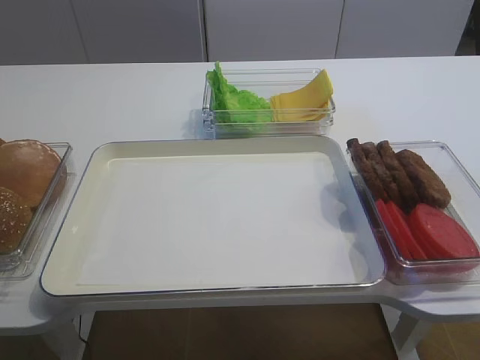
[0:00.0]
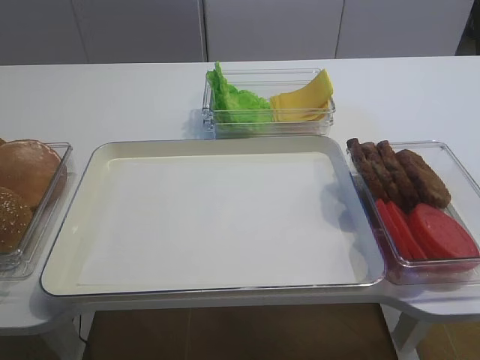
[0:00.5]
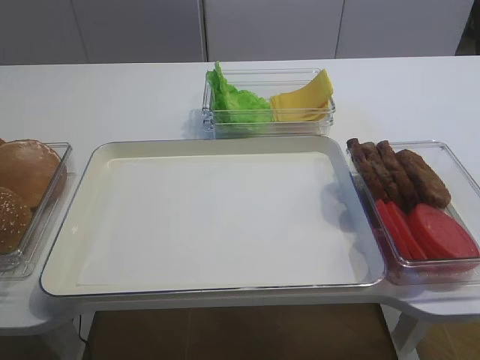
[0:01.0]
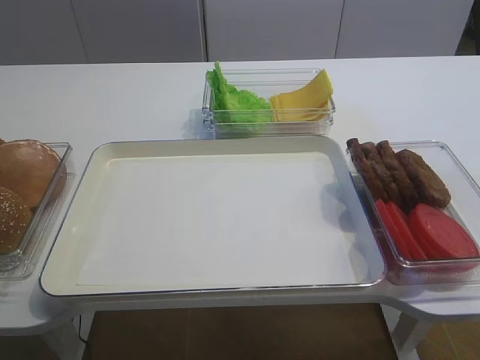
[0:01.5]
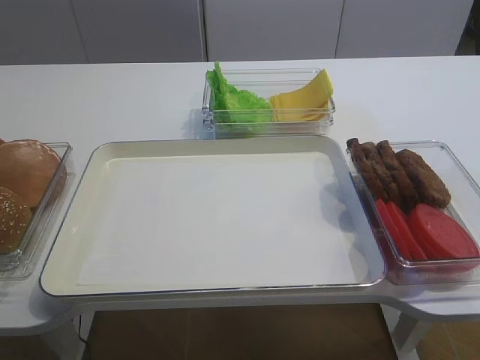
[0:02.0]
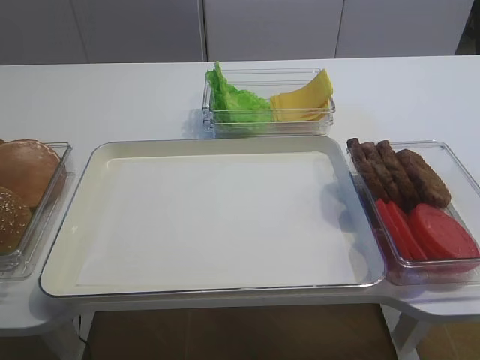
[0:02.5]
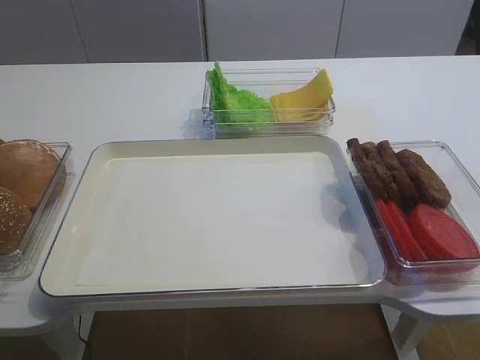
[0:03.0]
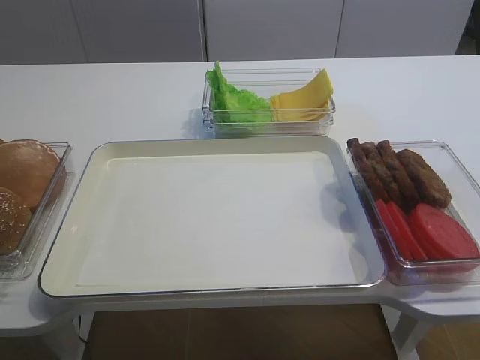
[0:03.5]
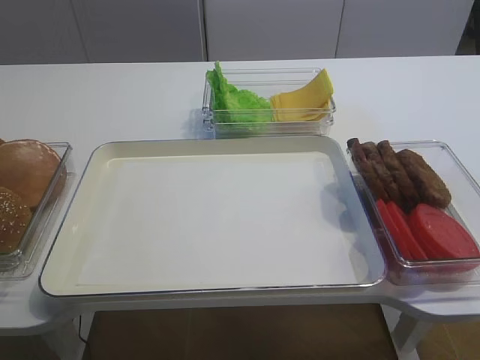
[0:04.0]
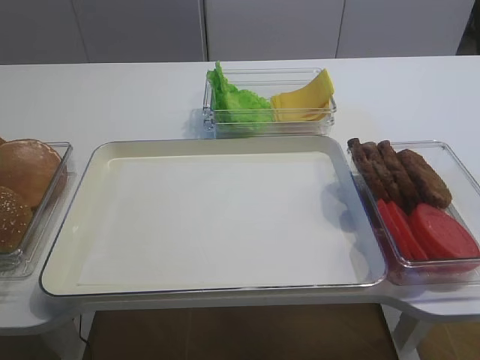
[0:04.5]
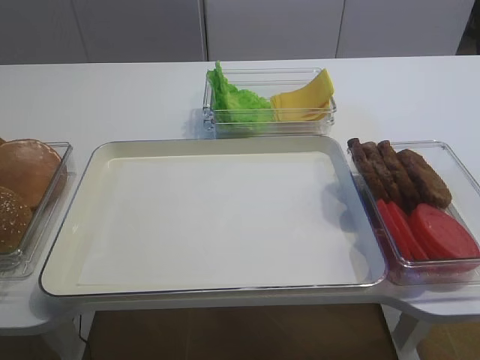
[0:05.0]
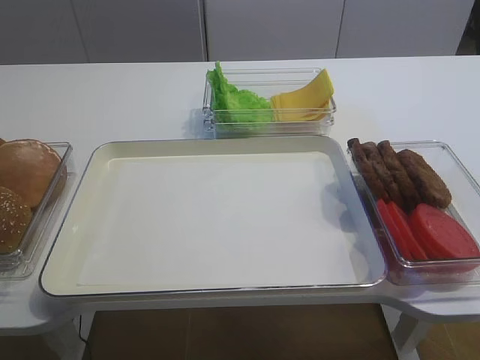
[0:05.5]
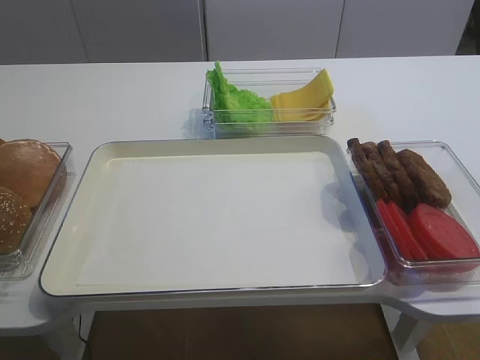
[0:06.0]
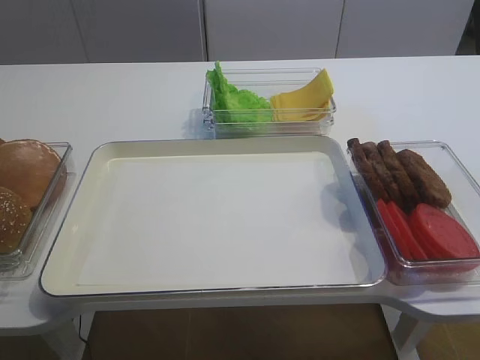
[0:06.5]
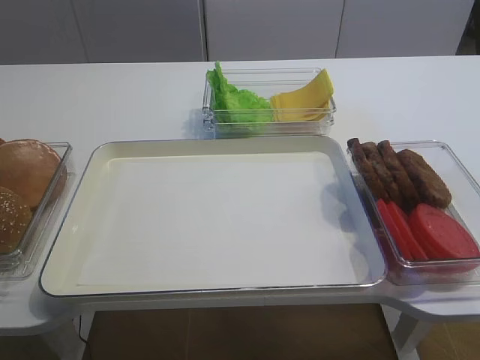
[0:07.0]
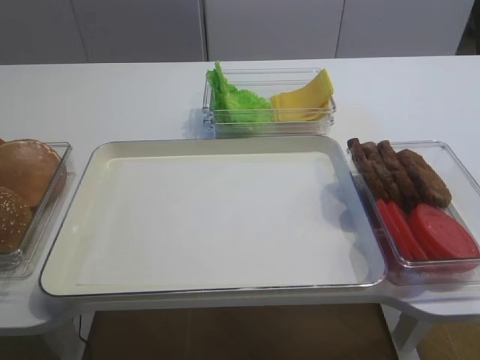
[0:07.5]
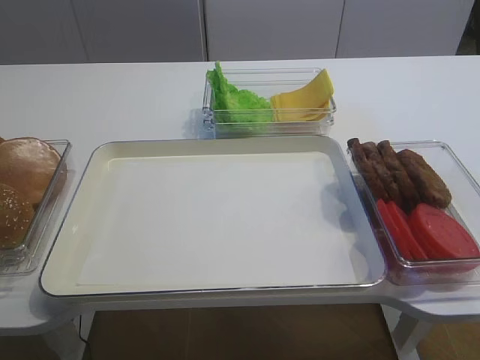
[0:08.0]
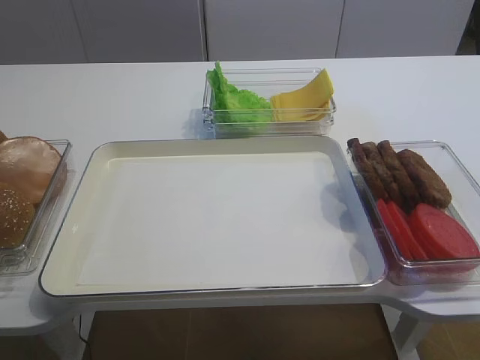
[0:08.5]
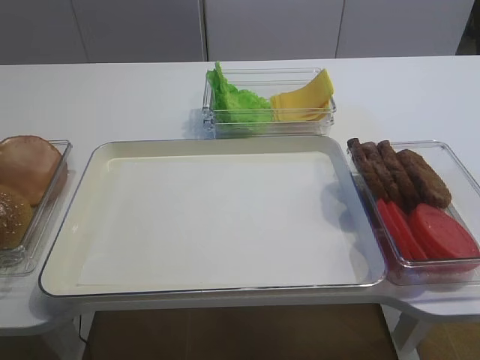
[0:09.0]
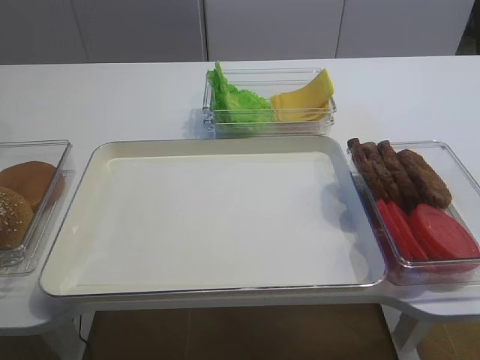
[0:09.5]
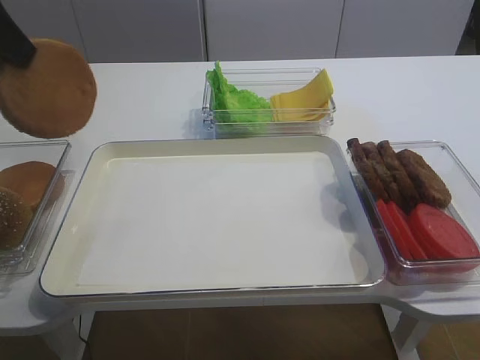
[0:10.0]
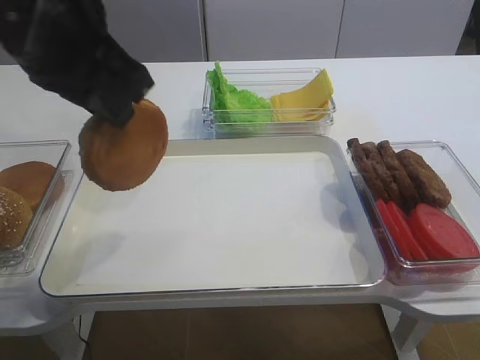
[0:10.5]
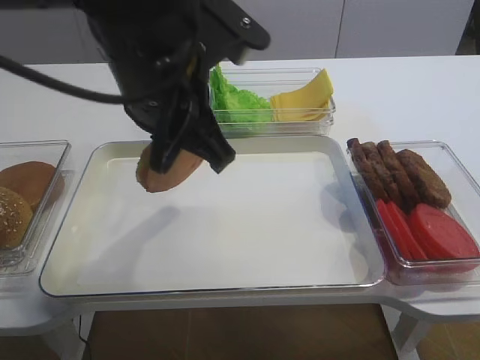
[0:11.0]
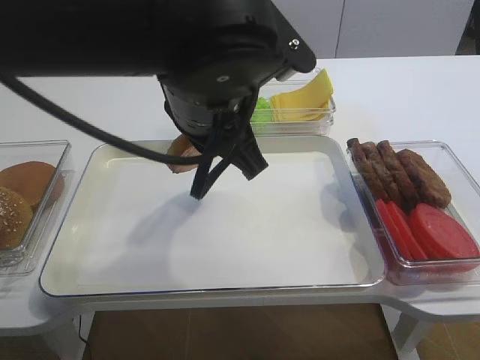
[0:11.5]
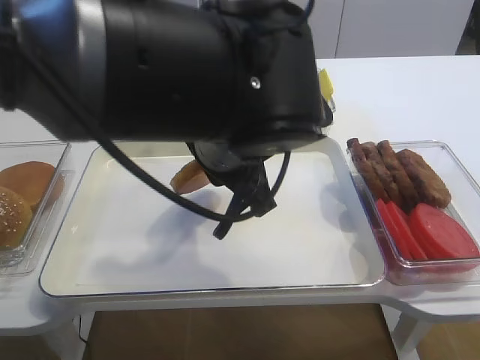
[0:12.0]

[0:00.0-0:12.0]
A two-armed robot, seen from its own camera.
0:08.0 to 0:10.0: The left gripper heads to the right, upward and backward, covering approximately 20 cm.
0:10.0 to 0:12.0: The left gripper is displaced to the right and downward by some 25 cm.

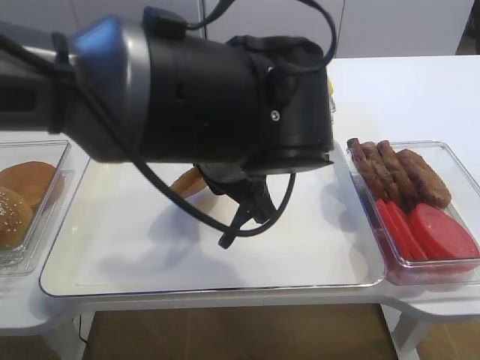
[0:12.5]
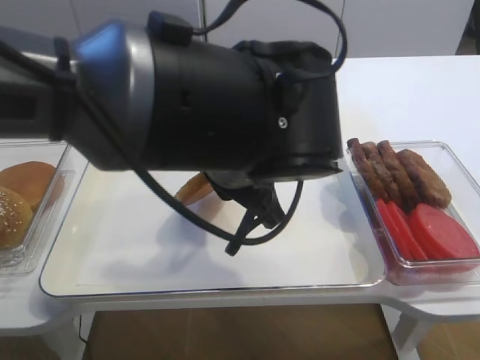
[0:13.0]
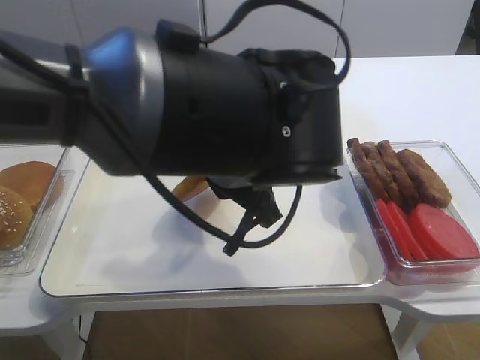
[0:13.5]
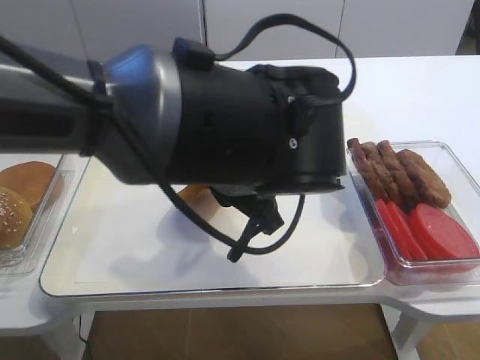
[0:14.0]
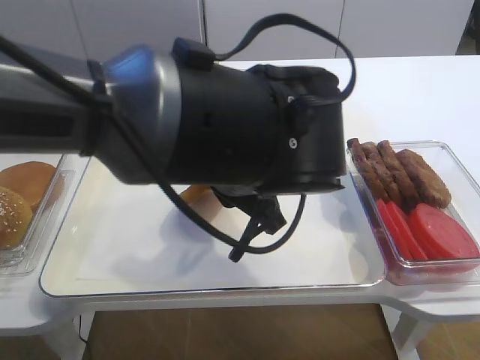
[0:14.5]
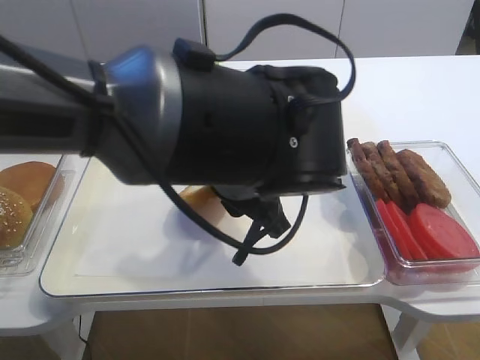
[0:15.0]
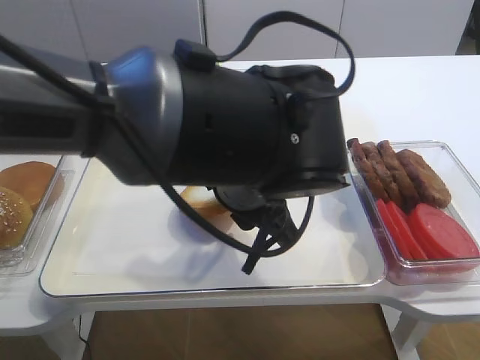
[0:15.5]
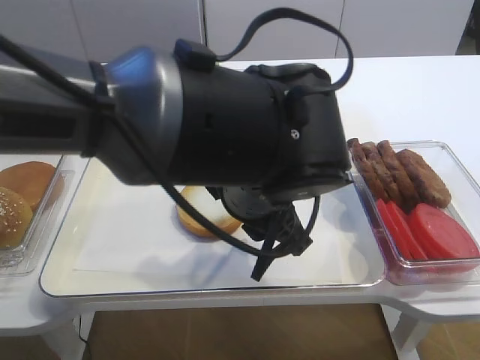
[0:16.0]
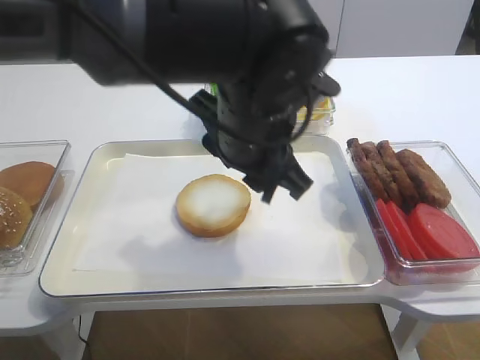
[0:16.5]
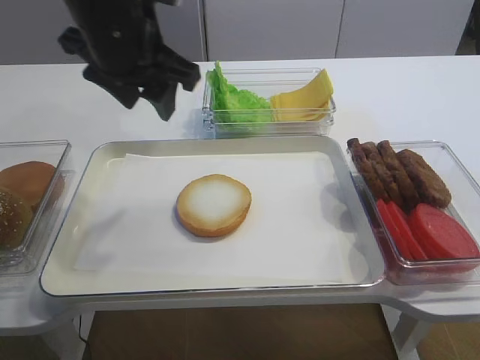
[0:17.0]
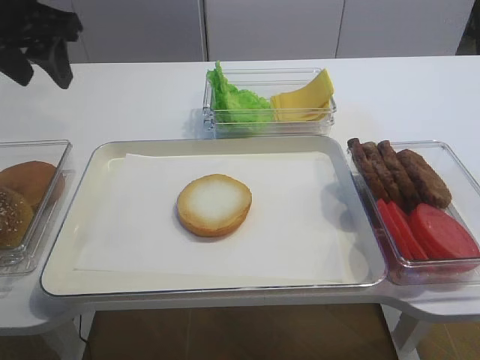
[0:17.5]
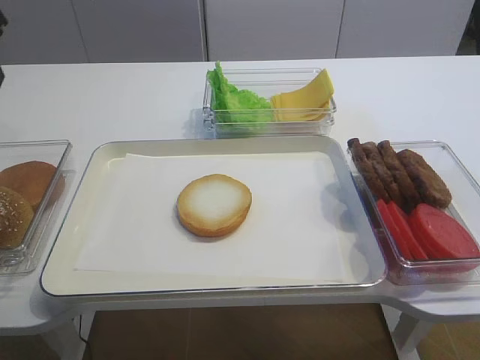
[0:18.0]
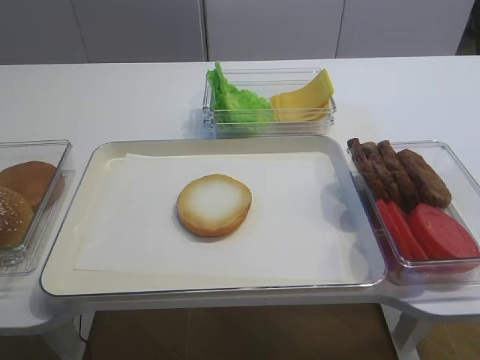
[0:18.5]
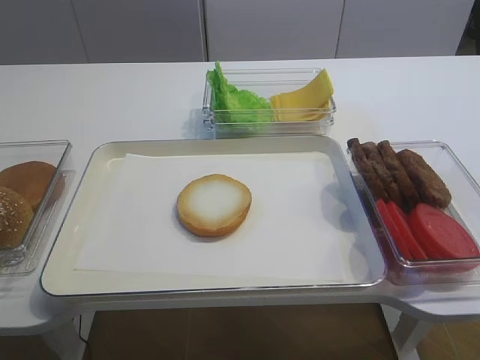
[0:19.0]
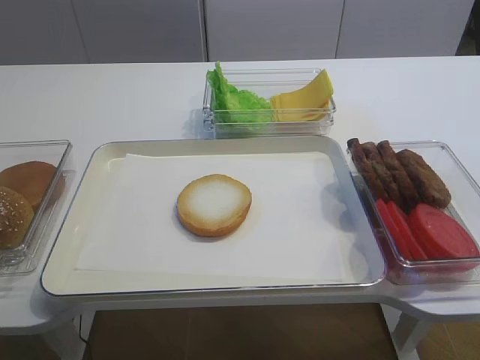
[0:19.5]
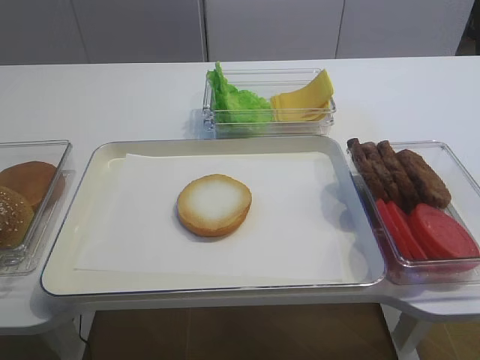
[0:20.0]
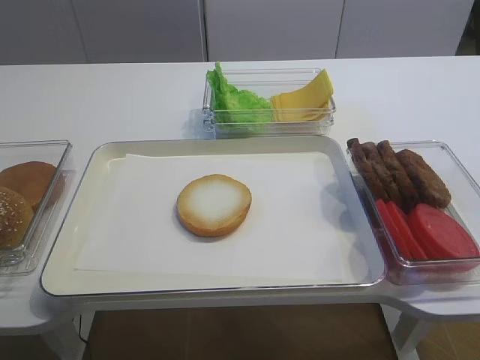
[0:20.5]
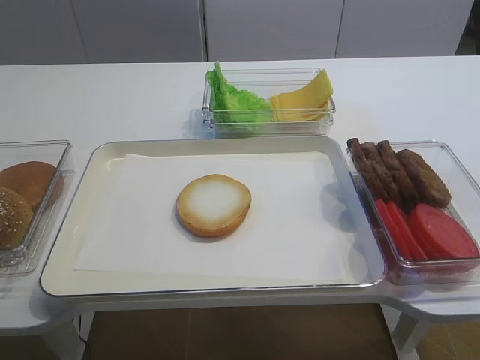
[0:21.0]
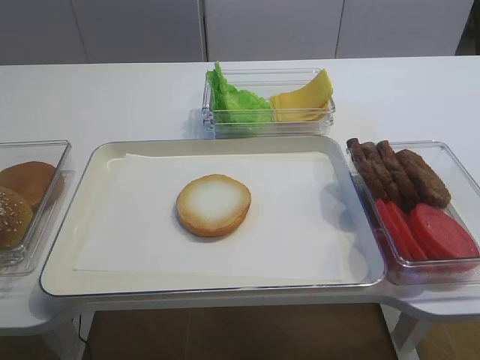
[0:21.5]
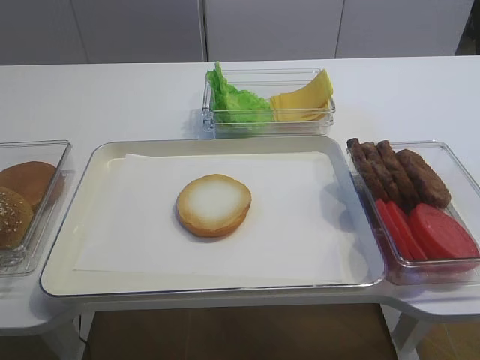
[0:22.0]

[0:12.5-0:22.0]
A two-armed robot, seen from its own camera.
Step, 0:12.5 to 0:16.0: Place the bread slice on the tray with the left gripper.
0:14.5 to 0:16.5: The left gripper opens up.
0:16.5 to 0:18.0: The left gripper travels to the left by approximately 30 cm.
